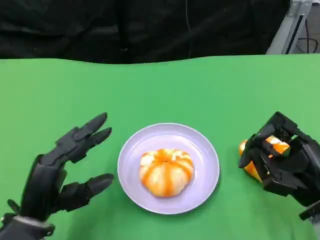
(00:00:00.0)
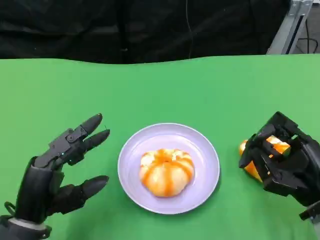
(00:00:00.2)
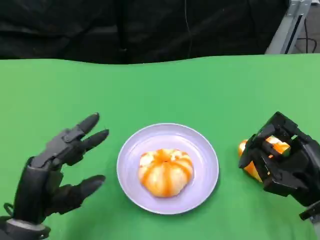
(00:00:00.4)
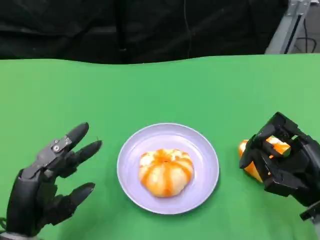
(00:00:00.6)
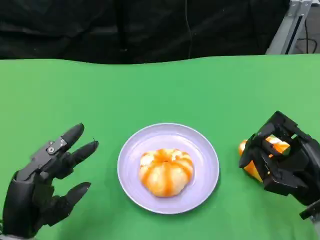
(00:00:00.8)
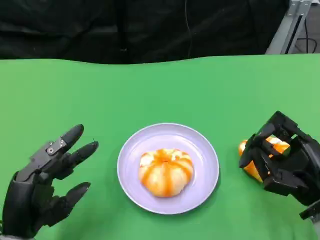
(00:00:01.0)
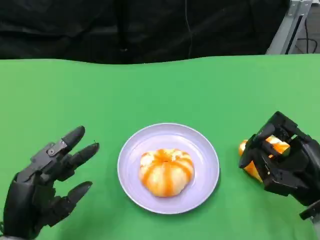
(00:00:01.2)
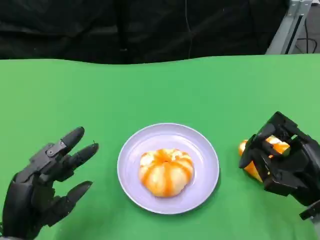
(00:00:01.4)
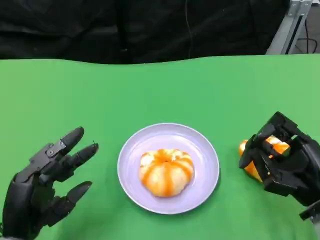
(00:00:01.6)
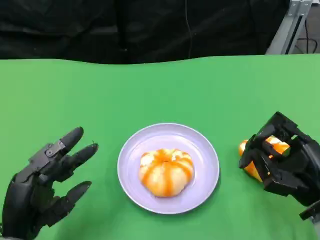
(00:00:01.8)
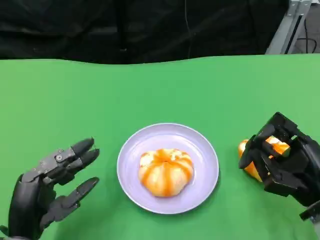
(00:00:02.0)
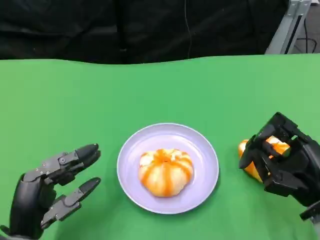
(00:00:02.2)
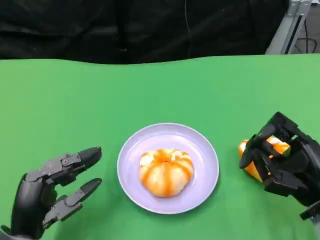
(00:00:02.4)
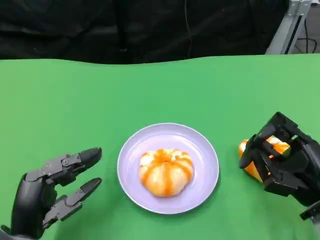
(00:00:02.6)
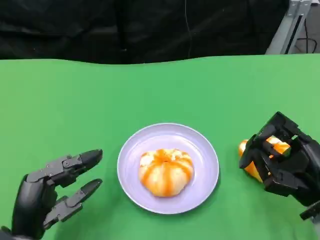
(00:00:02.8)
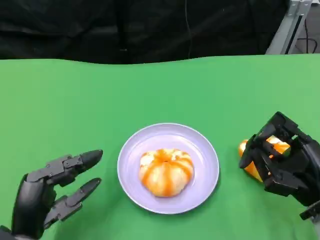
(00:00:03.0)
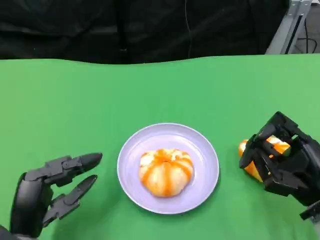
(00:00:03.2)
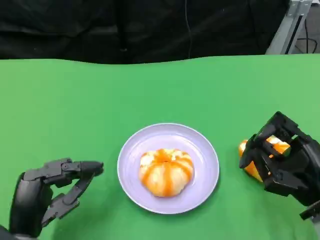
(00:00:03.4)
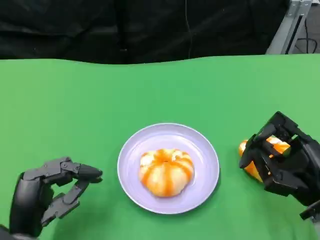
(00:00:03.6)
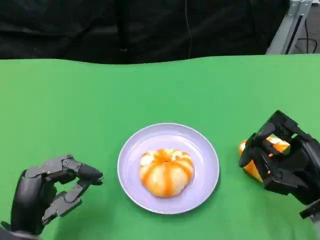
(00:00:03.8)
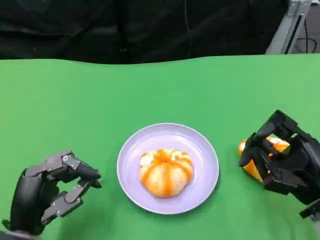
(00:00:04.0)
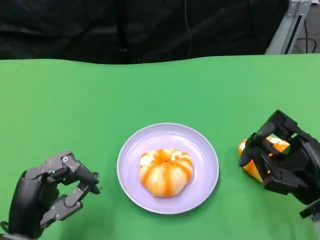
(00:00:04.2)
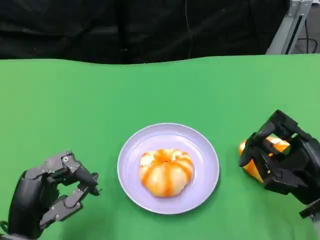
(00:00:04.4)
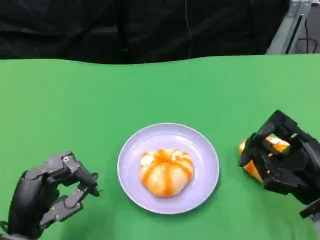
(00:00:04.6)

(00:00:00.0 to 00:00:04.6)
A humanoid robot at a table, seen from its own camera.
Task of the whole recording: Grasp the bread from the table and place it into the plate.
00:00:00.0 - 00:00:04.6: There are only small adjustments of the hands.

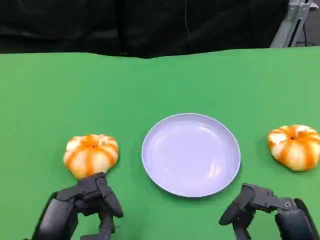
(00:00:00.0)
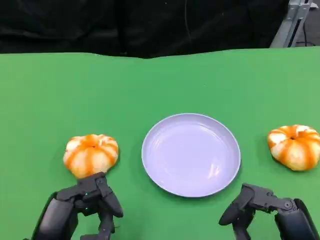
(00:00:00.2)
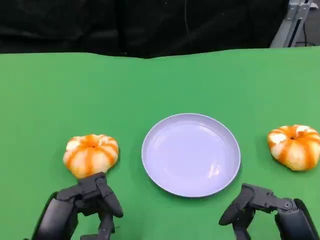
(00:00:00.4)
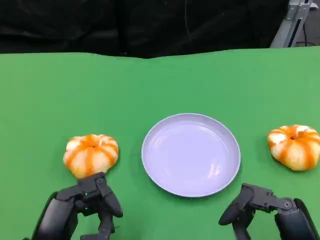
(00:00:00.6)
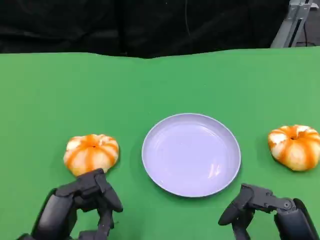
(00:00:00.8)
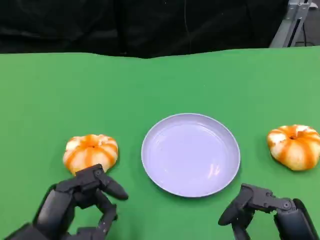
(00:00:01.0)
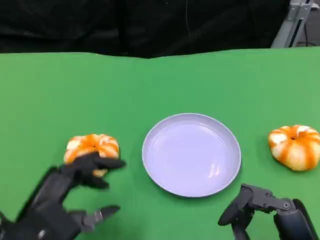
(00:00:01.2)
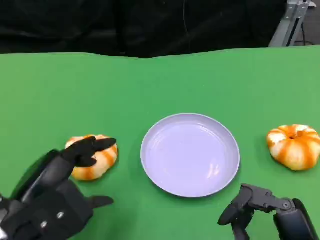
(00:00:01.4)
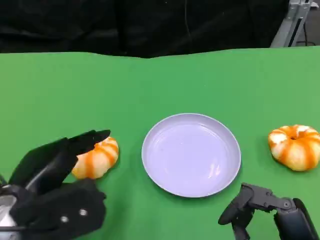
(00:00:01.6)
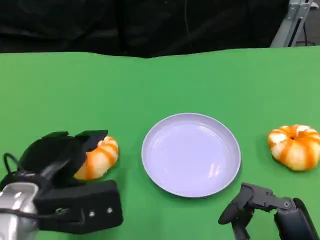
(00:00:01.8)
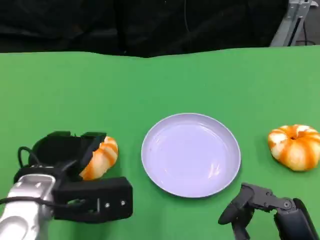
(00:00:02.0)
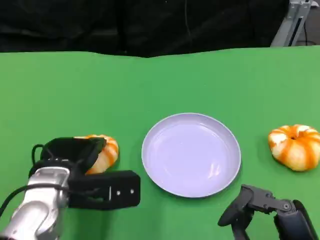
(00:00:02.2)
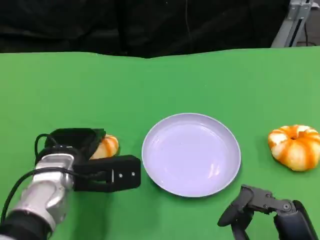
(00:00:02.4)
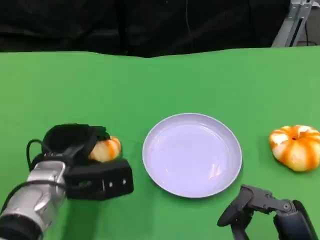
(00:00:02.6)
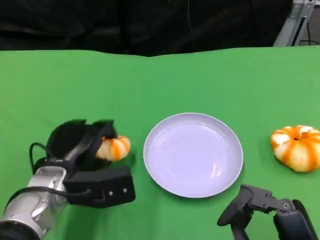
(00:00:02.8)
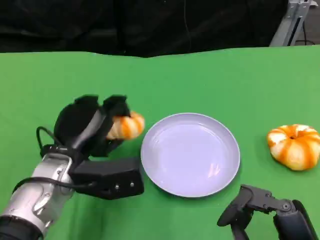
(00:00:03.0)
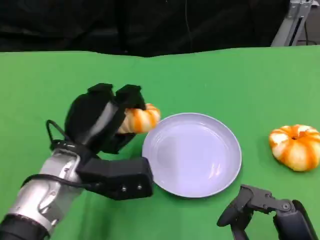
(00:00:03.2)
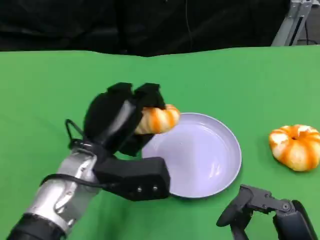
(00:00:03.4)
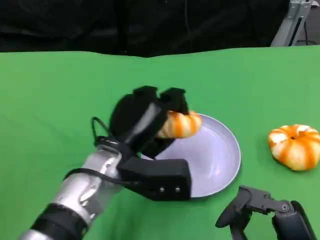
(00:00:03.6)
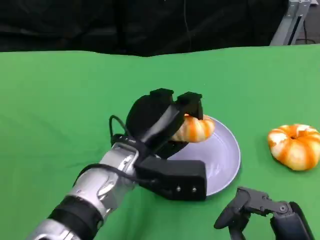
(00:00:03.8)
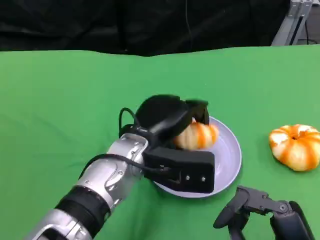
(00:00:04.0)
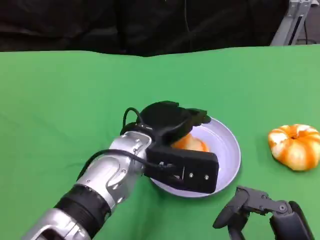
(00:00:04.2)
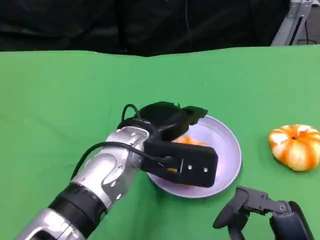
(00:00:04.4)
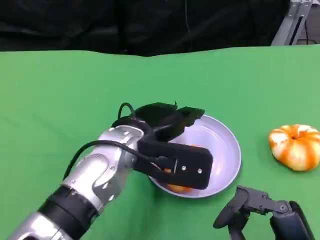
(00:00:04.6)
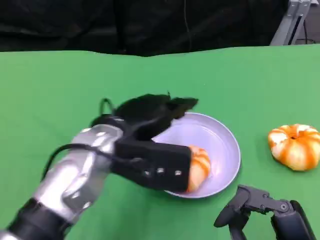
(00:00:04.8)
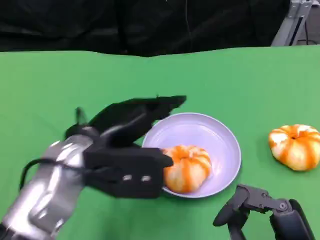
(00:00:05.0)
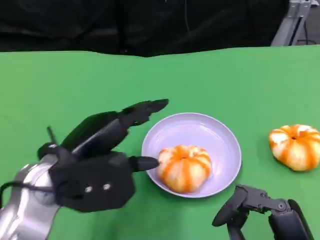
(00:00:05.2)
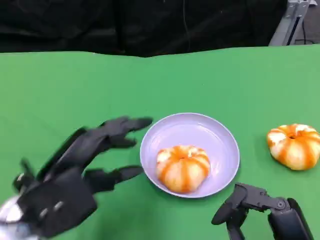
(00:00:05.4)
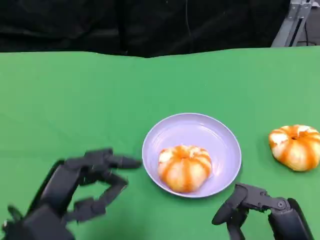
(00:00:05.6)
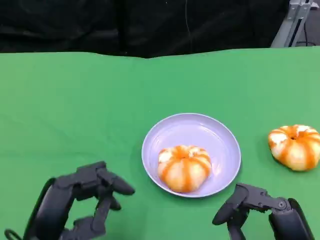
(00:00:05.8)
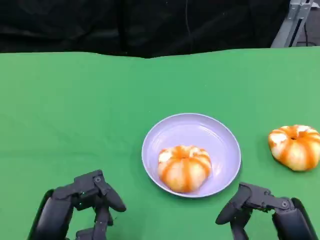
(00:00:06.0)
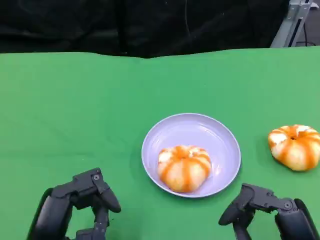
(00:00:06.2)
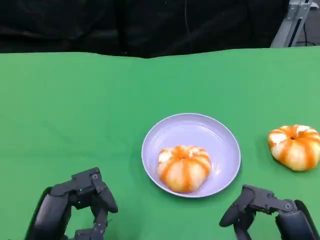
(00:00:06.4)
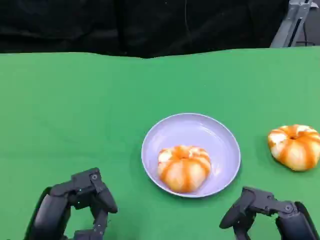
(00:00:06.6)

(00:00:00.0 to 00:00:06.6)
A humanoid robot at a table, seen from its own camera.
Task of the whole recording: Grasp the bread from the table and place it into the plate.
00:00:00.0 - 00:00:01.6: The left hand moves forward and upward, about 10 cm.
00:00:01.6 - 00:00:03.2: The left hand travels forward and to the right by about 10 cm.
00:00:03.2 - 00:00:05.0: The left hand goes about 5 cm upward, and goes to the right and returns, about 10 cm each way.
00:00:05.0 - 00:00:06.6: The left hand moves backward, downward and to the left, approximately 15 cm.

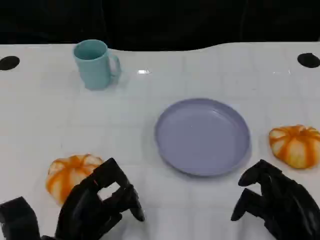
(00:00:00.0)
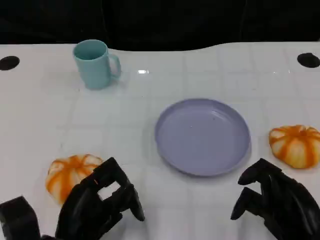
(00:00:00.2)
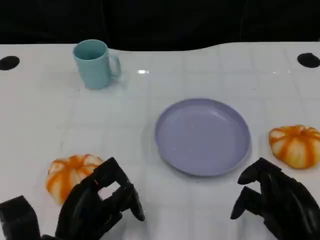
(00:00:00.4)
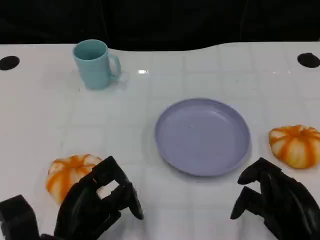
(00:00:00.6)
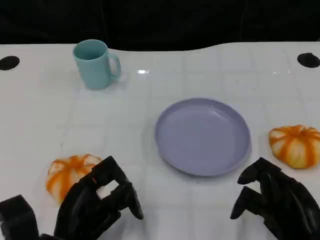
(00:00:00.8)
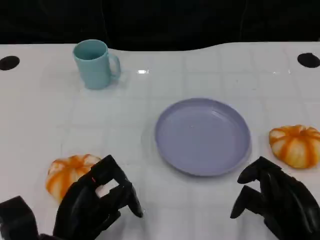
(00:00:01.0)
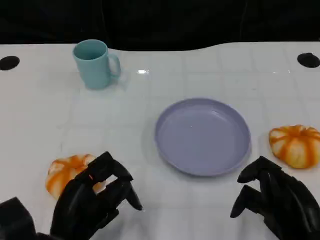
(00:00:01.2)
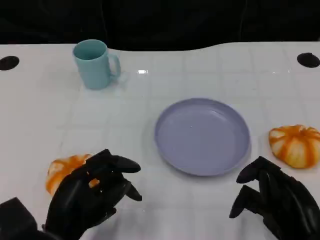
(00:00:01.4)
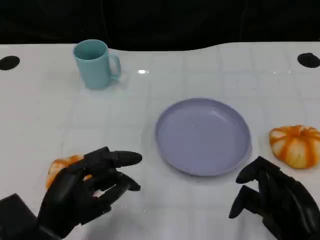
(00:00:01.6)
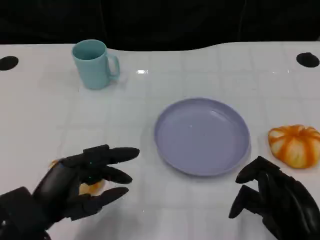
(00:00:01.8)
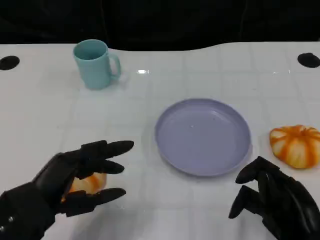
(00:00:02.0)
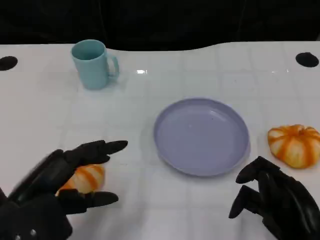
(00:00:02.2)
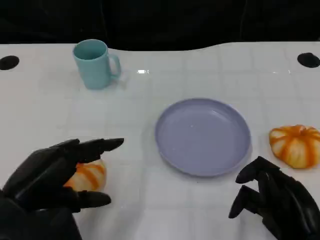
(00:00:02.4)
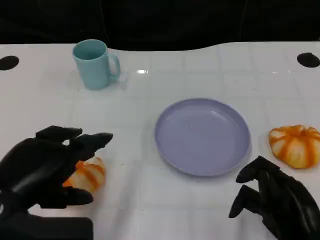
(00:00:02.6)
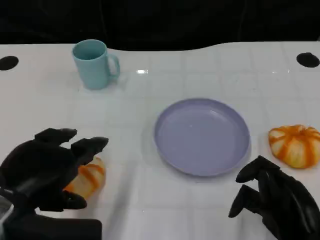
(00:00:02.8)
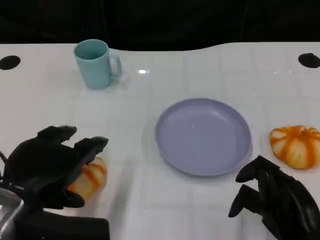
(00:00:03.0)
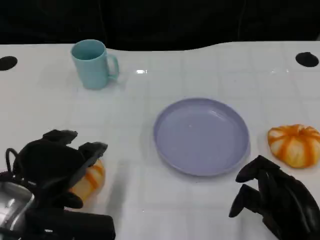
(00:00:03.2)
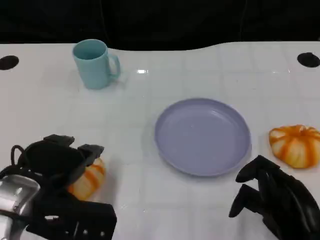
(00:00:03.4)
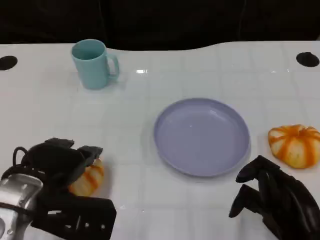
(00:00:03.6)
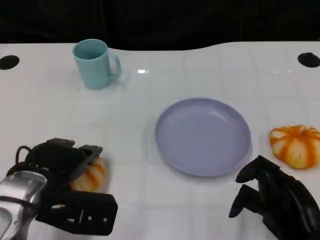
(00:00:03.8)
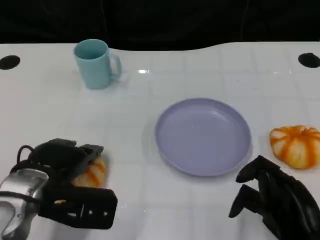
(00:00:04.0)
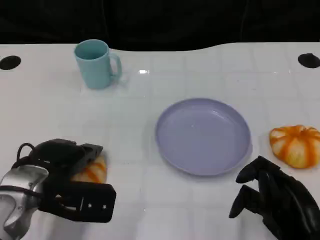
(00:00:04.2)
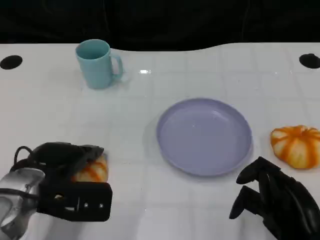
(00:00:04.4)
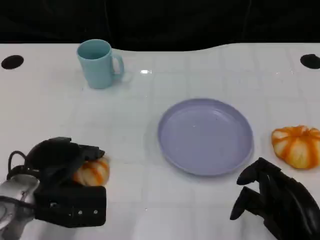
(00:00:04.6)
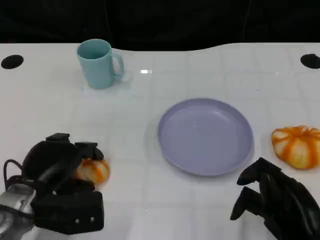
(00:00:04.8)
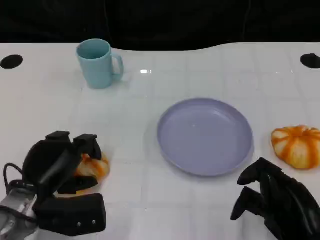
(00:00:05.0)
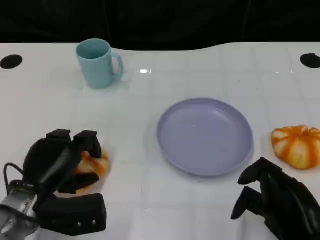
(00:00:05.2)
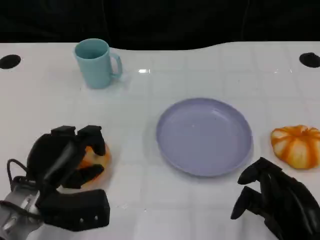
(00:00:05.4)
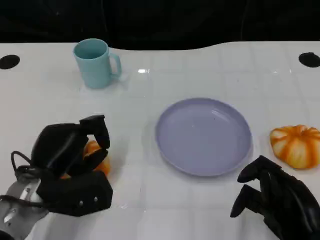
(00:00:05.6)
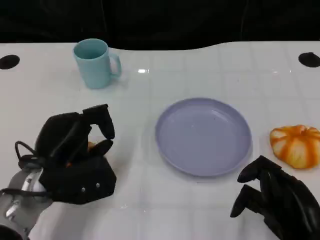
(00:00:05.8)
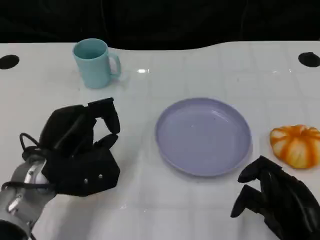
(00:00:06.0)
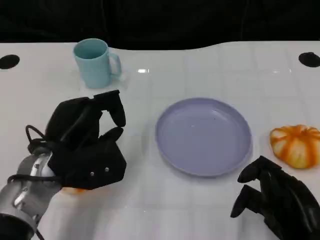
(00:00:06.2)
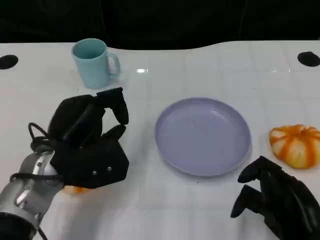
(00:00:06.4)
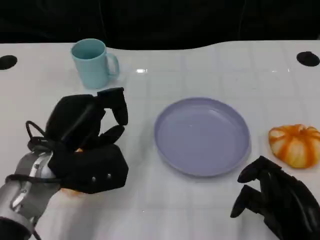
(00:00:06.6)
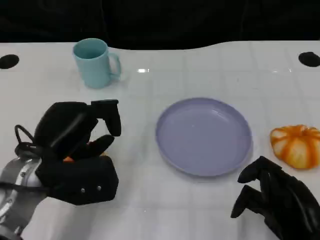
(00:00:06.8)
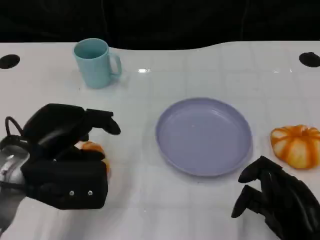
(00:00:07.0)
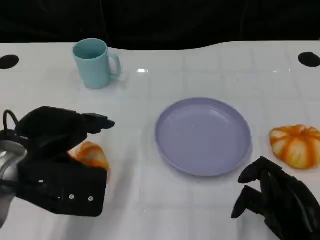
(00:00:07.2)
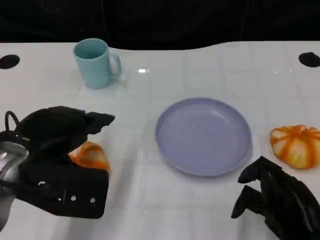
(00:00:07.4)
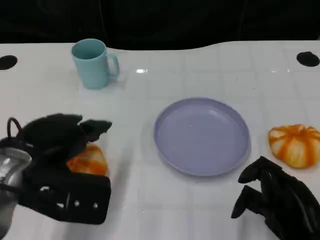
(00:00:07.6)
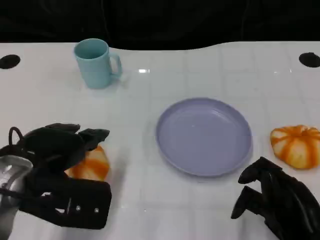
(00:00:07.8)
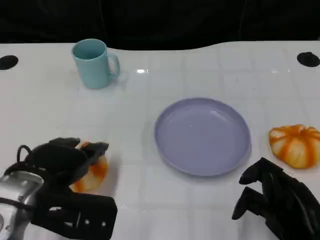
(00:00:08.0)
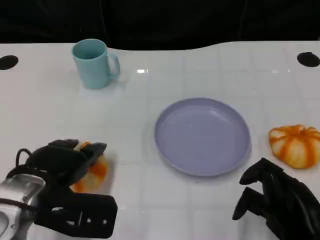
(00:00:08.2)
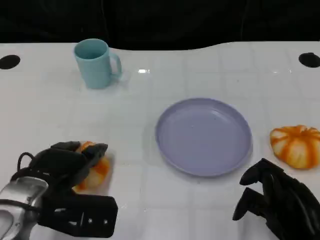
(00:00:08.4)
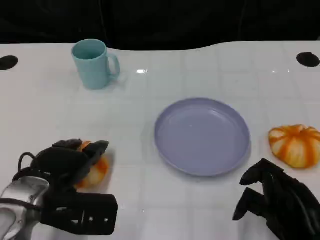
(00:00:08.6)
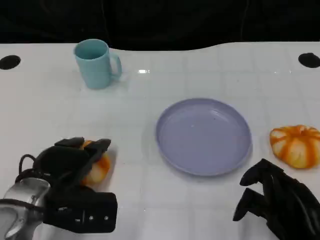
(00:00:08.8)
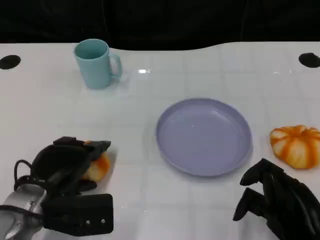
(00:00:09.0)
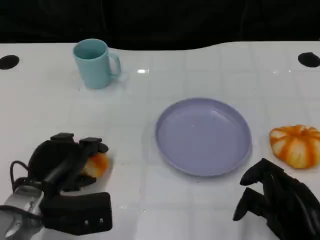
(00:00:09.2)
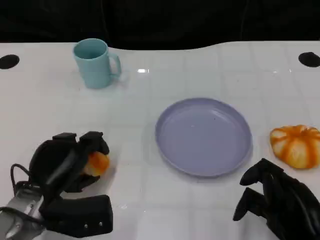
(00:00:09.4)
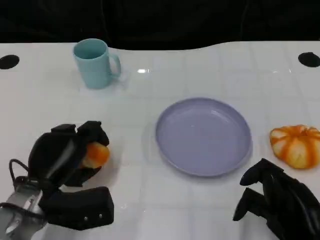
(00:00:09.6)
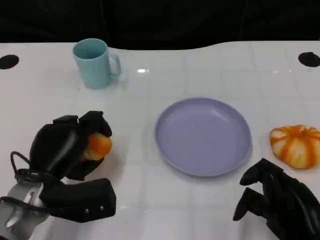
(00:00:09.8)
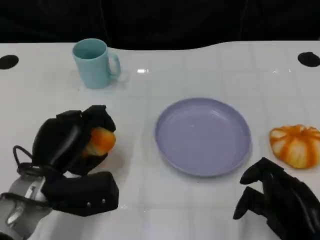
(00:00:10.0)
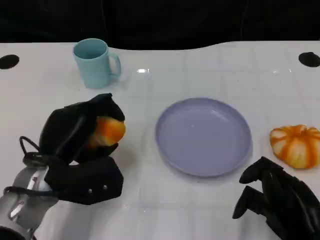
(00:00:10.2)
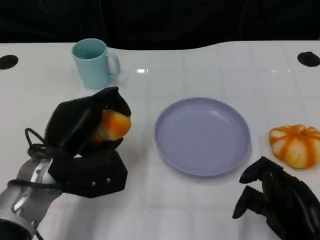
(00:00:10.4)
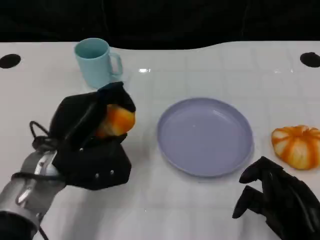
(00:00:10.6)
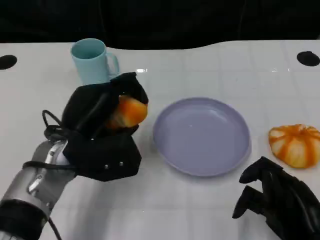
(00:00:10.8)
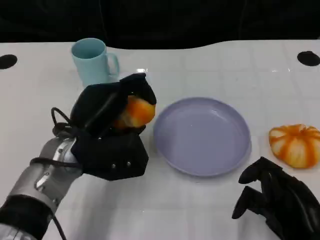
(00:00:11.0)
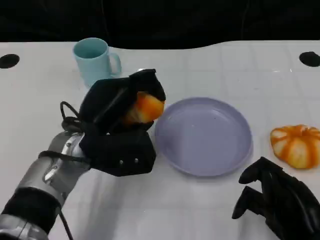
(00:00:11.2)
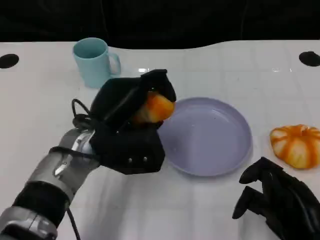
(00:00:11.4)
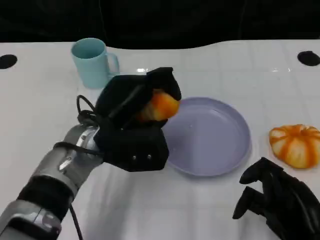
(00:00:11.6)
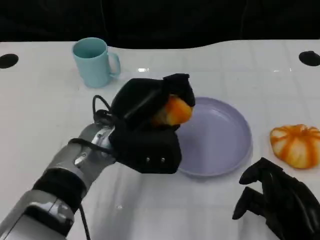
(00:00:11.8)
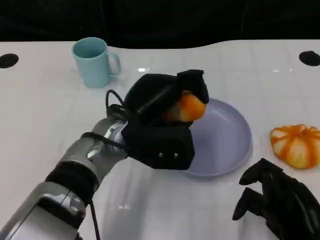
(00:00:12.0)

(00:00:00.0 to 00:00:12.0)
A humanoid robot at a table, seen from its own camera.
Task of the whole recording: Grasp the bread from the table and place it into the plate.
00:00:01.6 - 00:00:03.0: The left hand heads upward, covering about 10 cm.
00:00:03.0 - 00:00:04.4: The left hand is displaced downward and forward by some 10 cm.
00:00:06.0 - 00:00:07.6: The left hand goes some 5 cm upward.
00:00:07.6 - 00:00:09.0: The left hand travels downward by about 10 cm.
00:00:09.0 - 00:00:10.4: The left hand shifts by some 5 cm.
00:00:10.4 - 00:00:12.0: The left hand shifts roughly 10 cm to the right.
